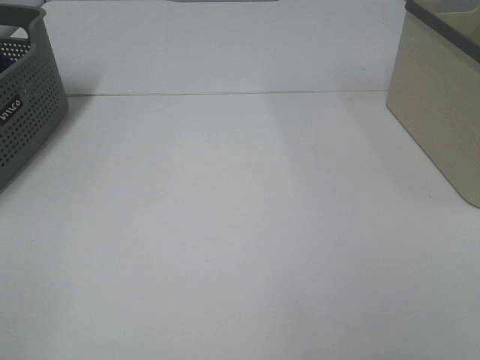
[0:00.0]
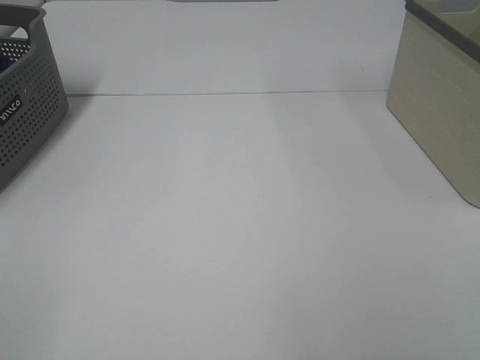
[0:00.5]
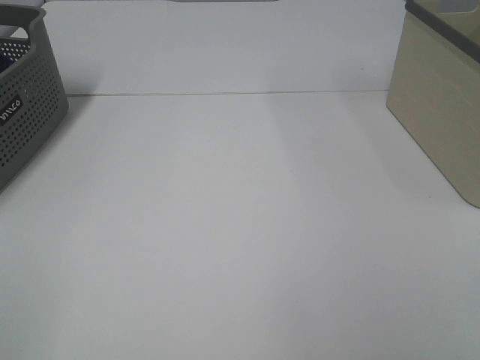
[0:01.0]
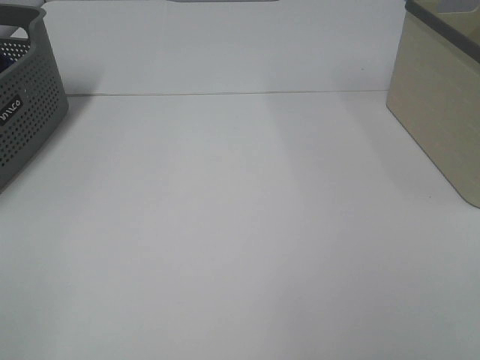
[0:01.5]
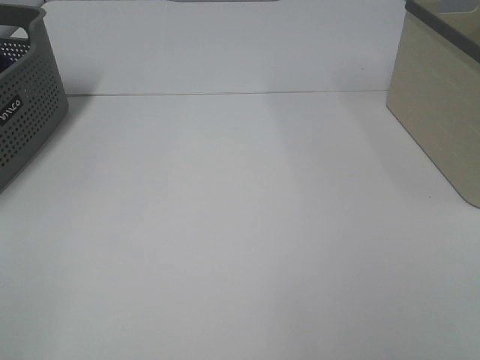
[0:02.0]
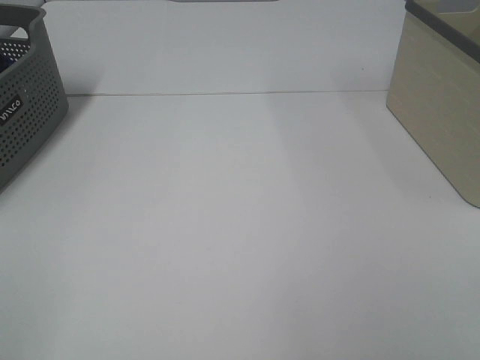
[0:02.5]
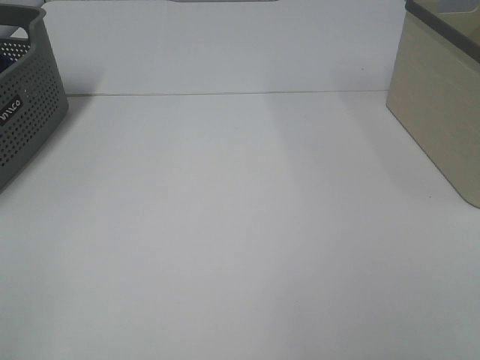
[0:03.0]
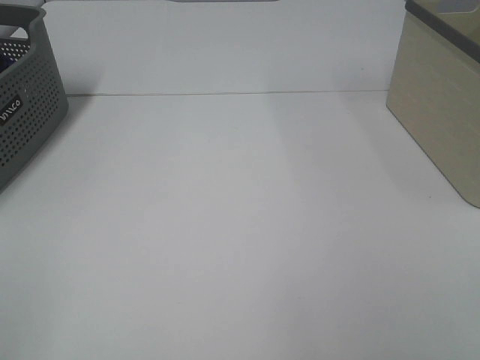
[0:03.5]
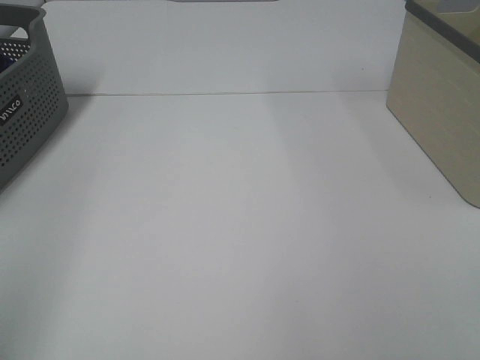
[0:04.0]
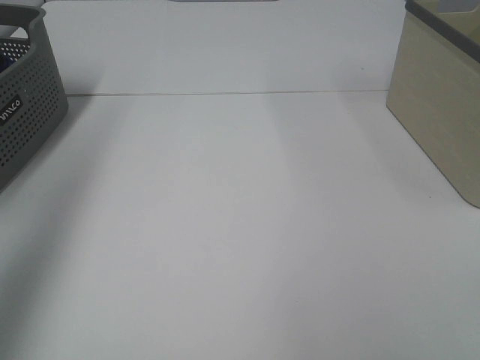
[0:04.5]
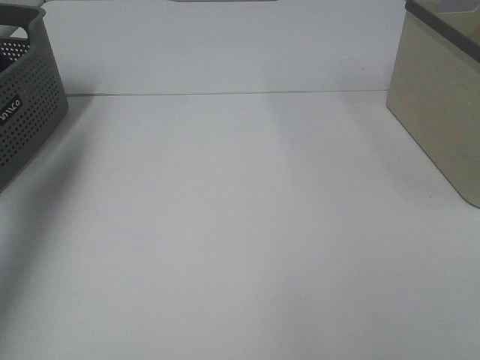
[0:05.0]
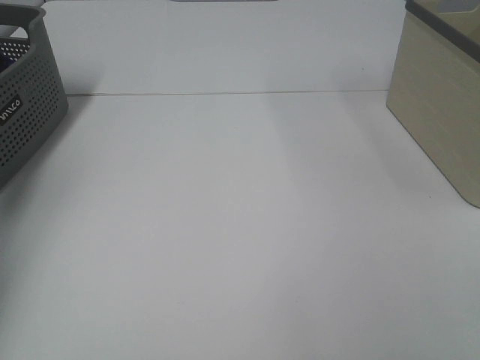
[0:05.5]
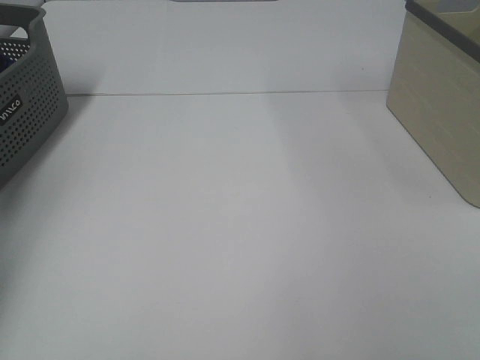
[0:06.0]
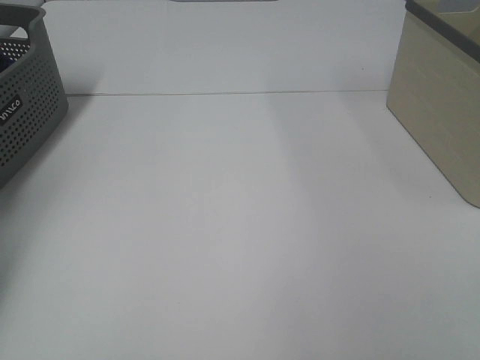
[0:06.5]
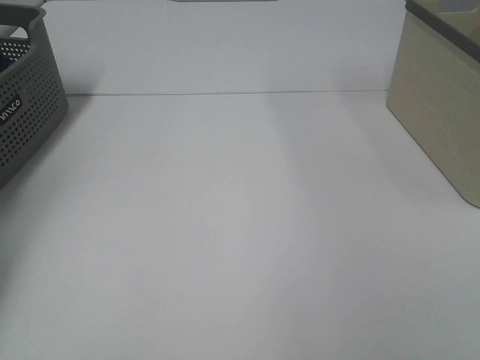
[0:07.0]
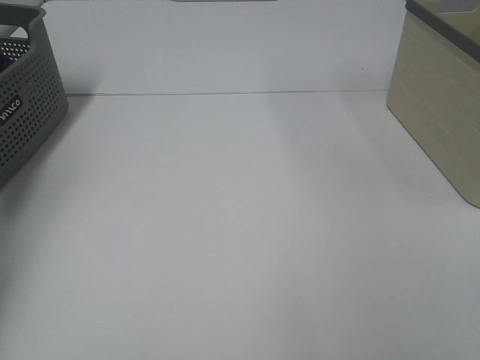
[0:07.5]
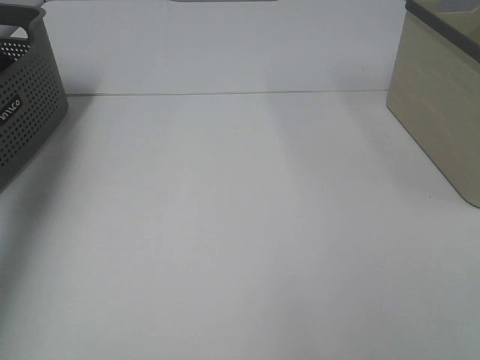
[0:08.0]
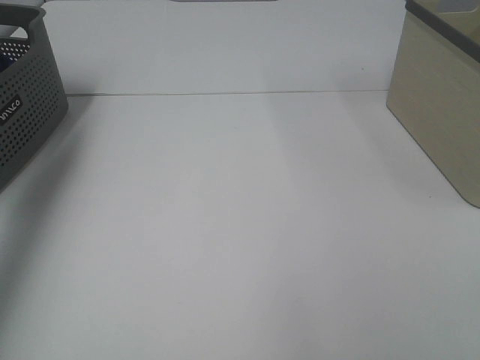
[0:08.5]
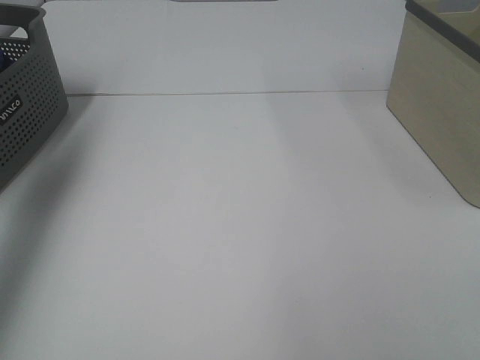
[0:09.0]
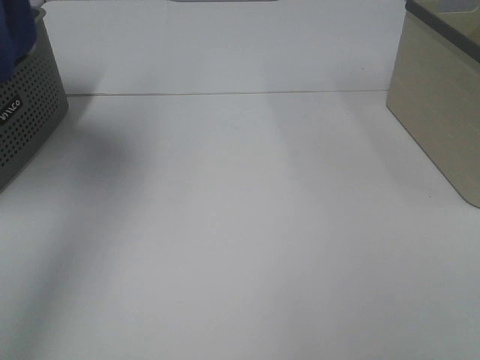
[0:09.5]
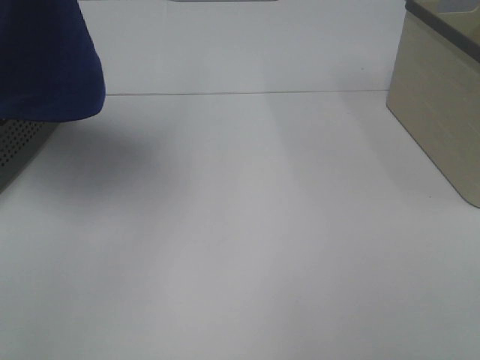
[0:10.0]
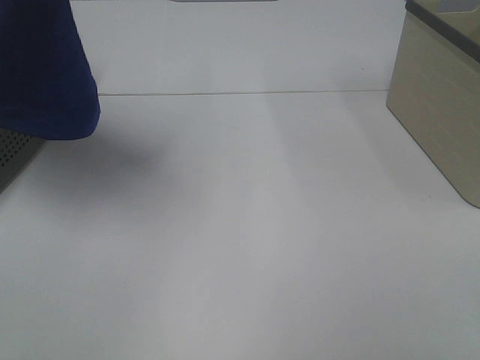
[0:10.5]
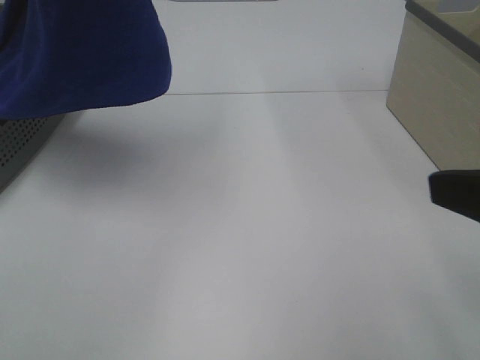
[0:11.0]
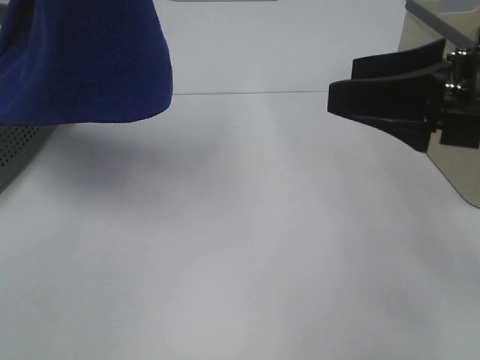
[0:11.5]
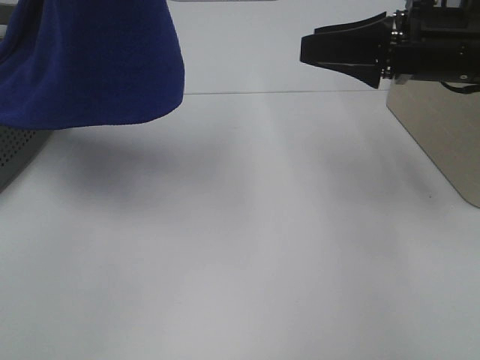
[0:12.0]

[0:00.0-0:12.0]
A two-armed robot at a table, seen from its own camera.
Task of the whole recording: Remove the towel and place it.
0:00.0 to 0:02.0: Both grippers stay put.
0:04.0 to 0:06.0: The left gripper heads forward, covering some 40 cm.
0:06.0 to 0:08.0: The left gripper moves upward, roughly 15 cm, and closes its fingers.
0:08.0 to 0:10.0: The left gripper heads to the right, upward and backward, covering about 25 cm.
0:10.0 to 0:12.0: The right gripper moves forward, some 30 cm.

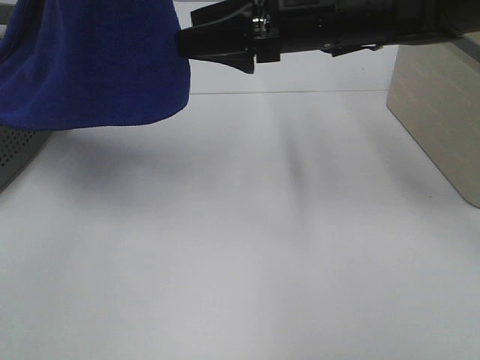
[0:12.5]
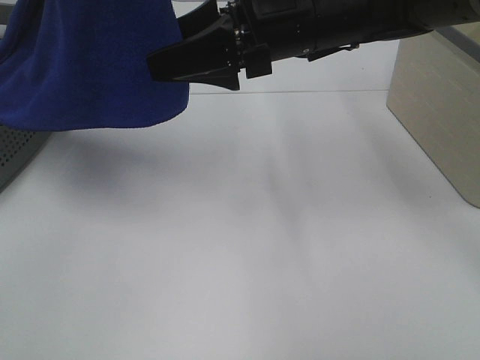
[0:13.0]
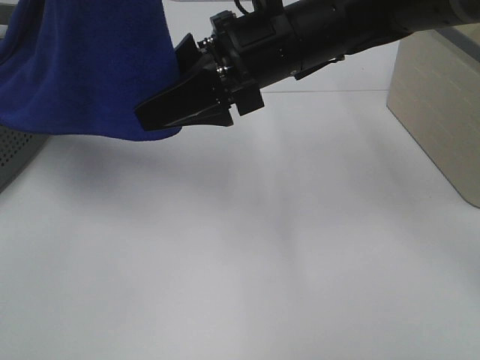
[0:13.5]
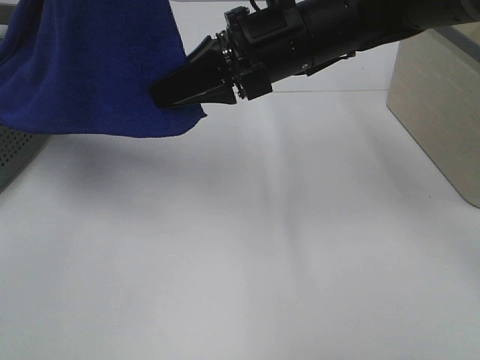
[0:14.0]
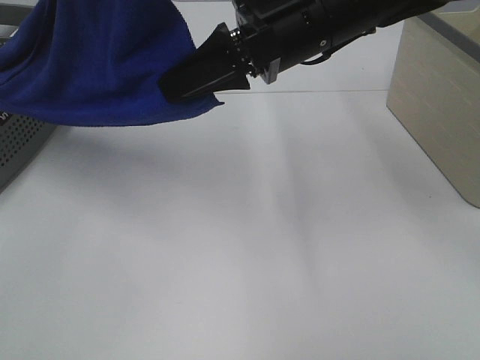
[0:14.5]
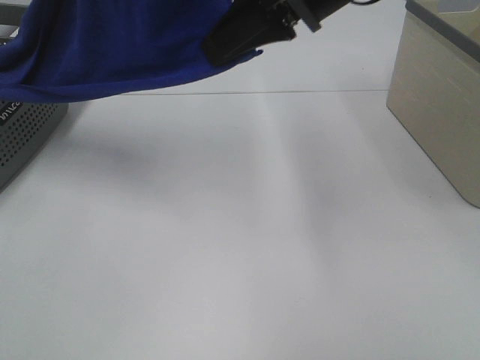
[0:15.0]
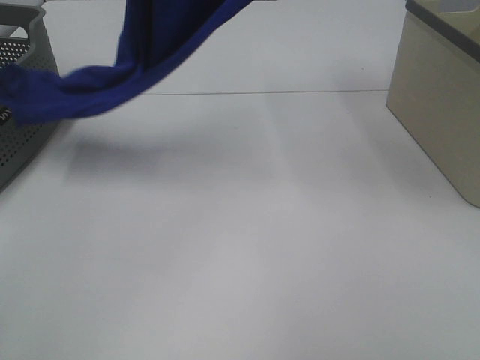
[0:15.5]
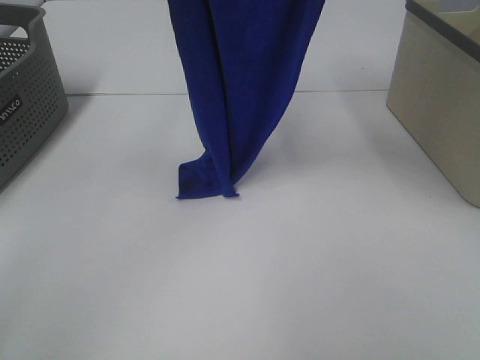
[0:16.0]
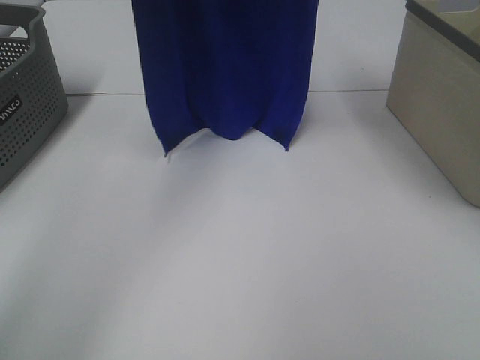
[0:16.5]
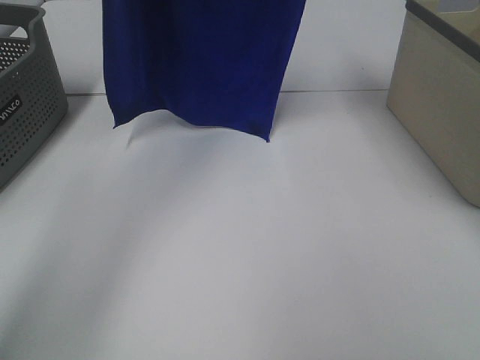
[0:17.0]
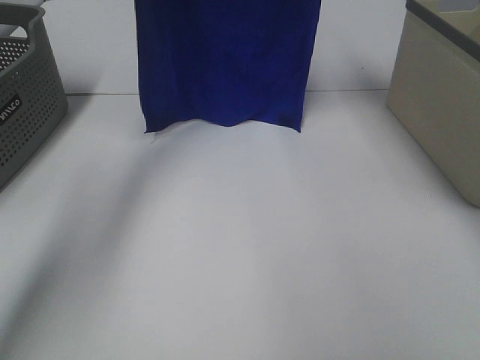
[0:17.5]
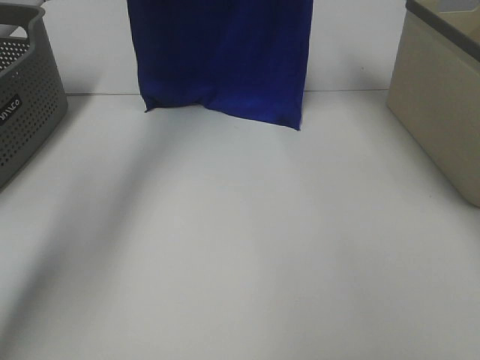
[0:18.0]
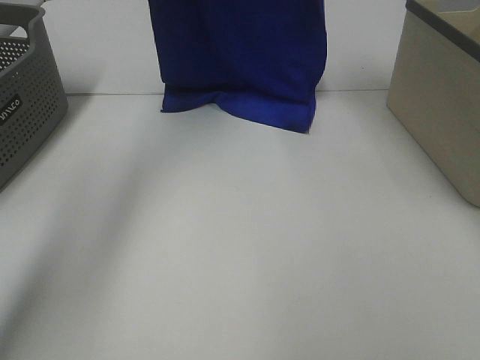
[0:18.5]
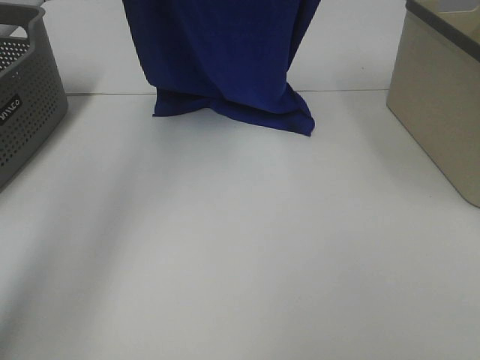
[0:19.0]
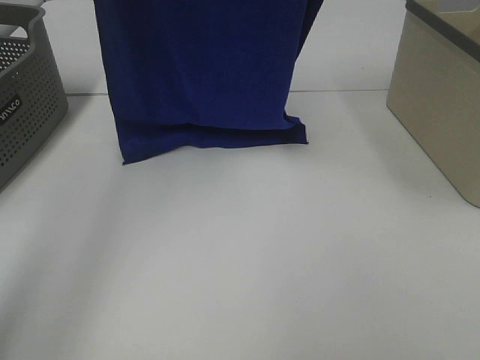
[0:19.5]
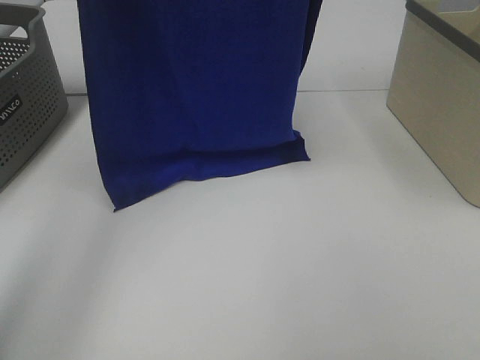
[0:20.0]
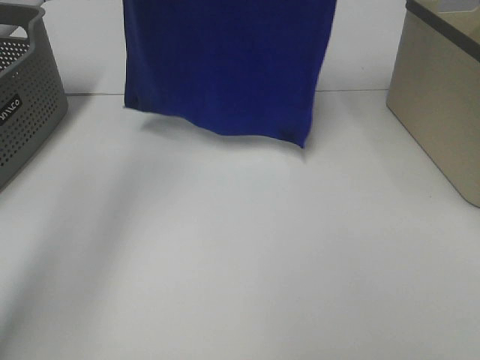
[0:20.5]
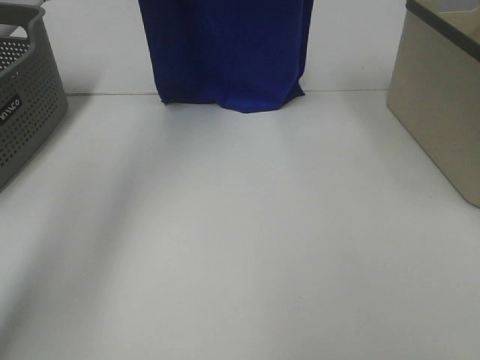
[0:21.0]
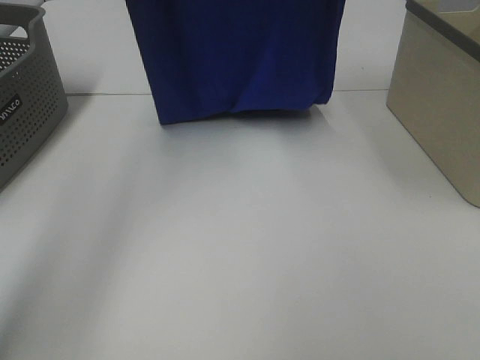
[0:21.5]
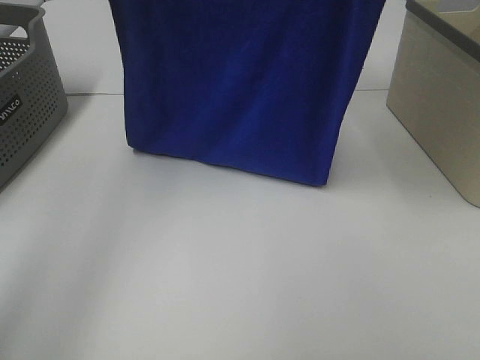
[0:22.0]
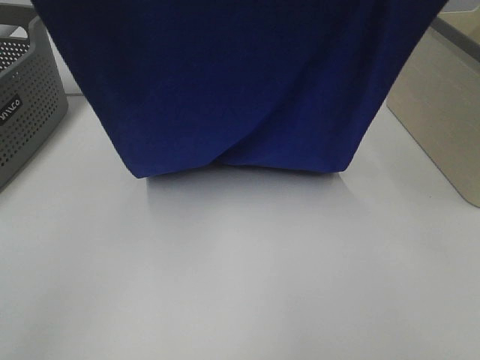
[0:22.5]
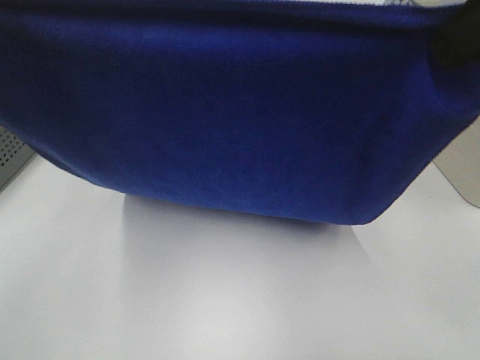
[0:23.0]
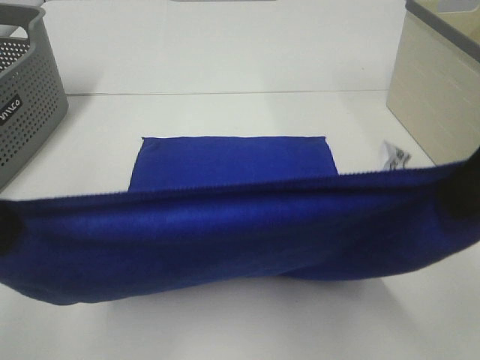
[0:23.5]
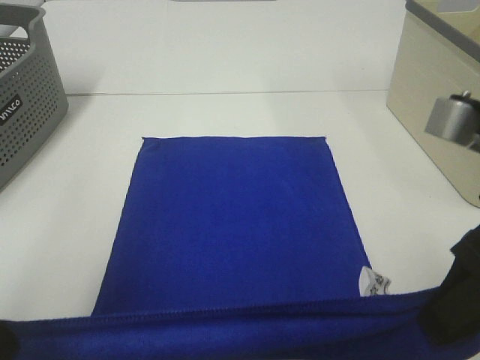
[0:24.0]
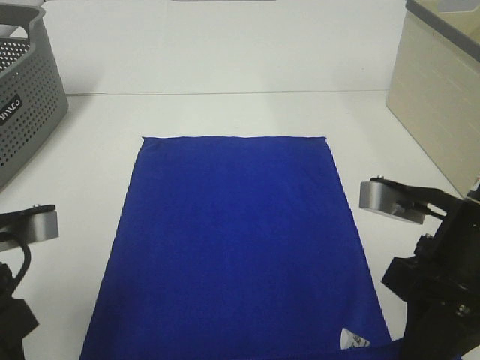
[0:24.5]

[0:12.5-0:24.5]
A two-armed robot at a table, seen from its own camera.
Task of the whole recording: Remove the towel and place it.
Step, 0:14.0 to 0:21.0: Left hand: spread the blue towel flat on the table.
Step, 0:14.0 to 0:21.0: Right hand: spread the blue towel flat on the table.
0:12.5 to 0:14.5: The right gripper moves approximately 5 cm, and closes its fingers.
0:14.5 to 0:16.5: The left gripper travels forward by about 15 cm, while the right gripper goes about 20 cm upward.
0:16.5 to 0:18.5: The left gripper moves forward, about 10 cm. Meanwhile the right gripper moves forward and downward, roughly 10 cm.
0:18.5 to 0:20.5: Both grippers travel together upward, about 10 cm. The right gripper moves some 15 cm backward and comes back. The left gripper travels backward and back again, about 15 cm each way.
0:20.5 to 0:22.5: The right gripper shifts some 20 cm backward. Meanwhile the left gripper travels backward and downward by some 20 cm.
0:22.5 to 0:24.5: The left gripper goes roughly 30 cm downward and backward; the right gripper travels downward by roughly 25 cm.

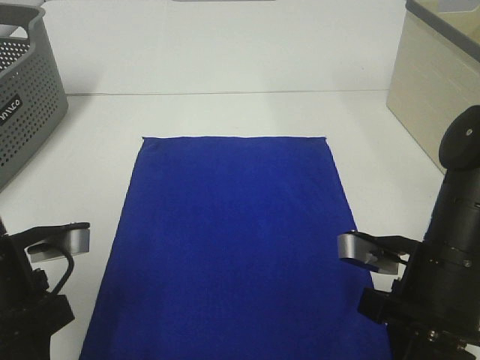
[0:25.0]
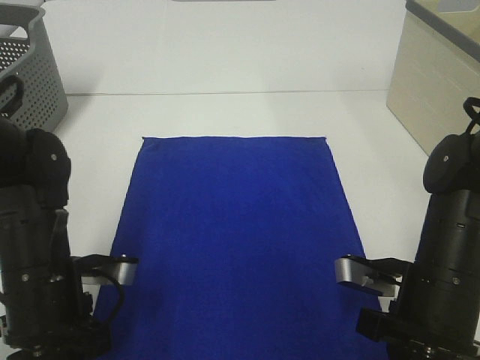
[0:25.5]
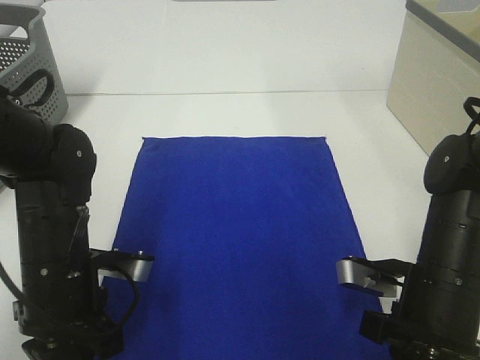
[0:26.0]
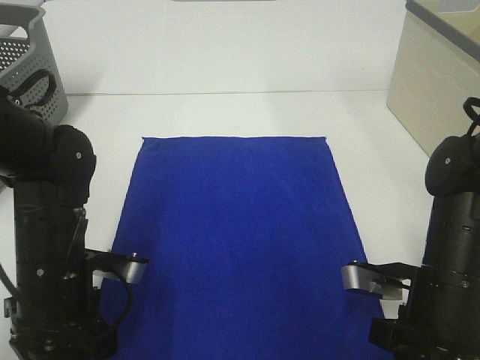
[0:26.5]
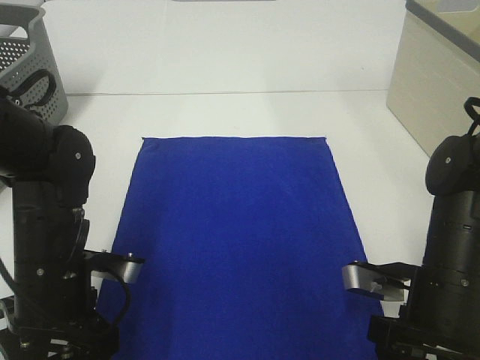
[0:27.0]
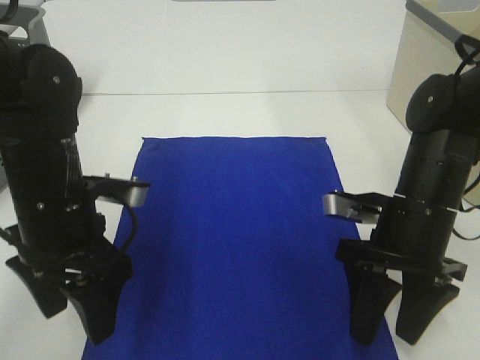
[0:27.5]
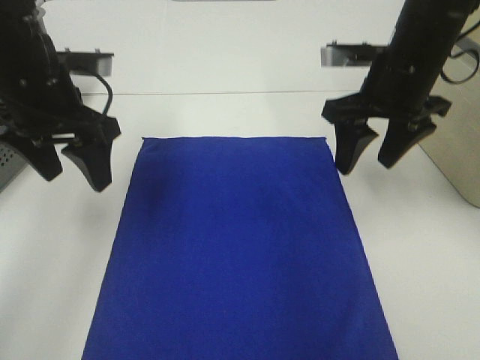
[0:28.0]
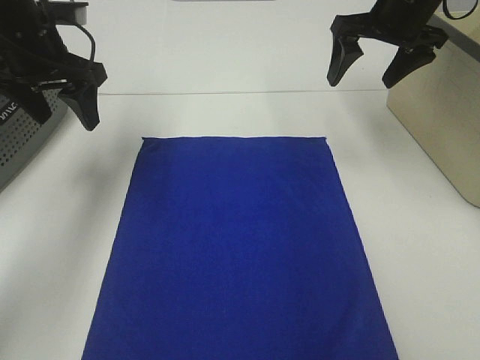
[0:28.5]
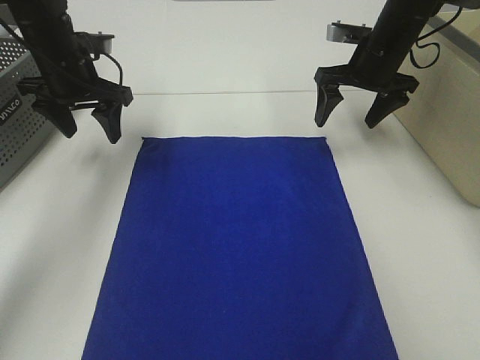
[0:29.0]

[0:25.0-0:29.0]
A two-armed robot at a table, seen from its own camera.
Task of the whole recording: Remove the towel and place it.
0:25.0 to 0:27.0: The right gripper opens. The left gripper changes place by roughly 5 cm, and opens up.
0:27.0 to 0:29.0: Both grippers move forward, some 30 cm.
